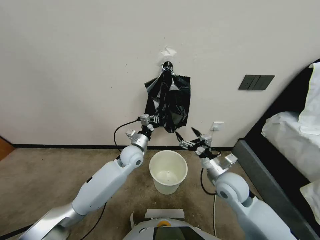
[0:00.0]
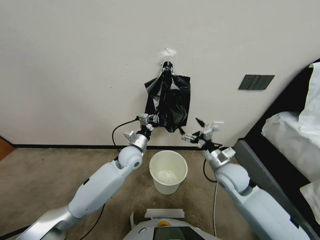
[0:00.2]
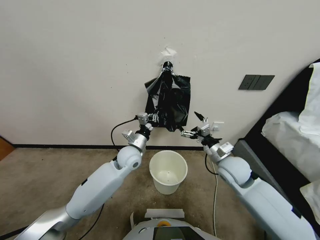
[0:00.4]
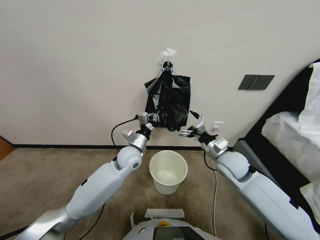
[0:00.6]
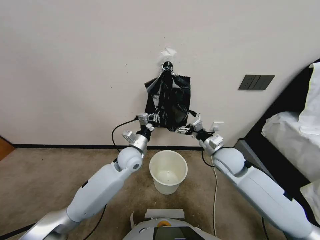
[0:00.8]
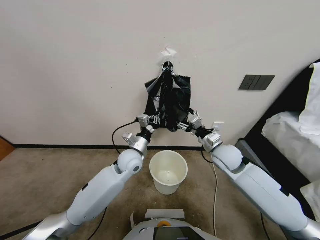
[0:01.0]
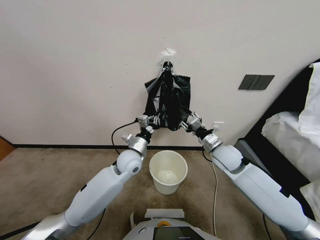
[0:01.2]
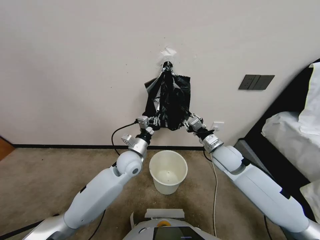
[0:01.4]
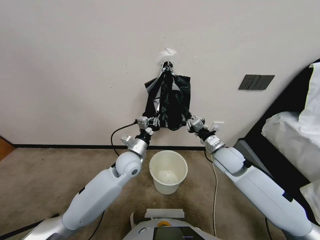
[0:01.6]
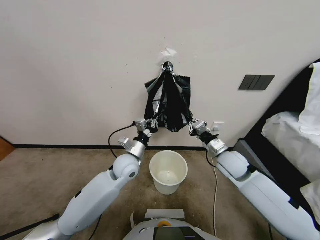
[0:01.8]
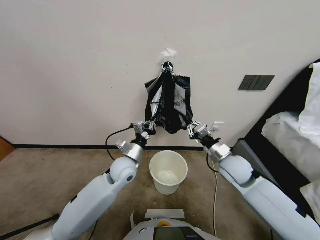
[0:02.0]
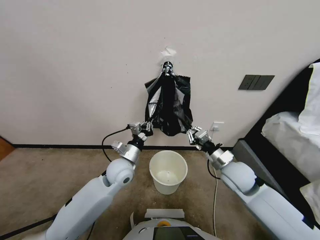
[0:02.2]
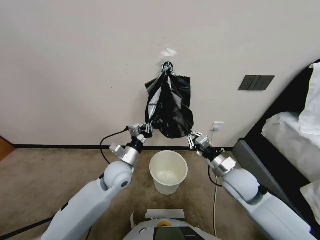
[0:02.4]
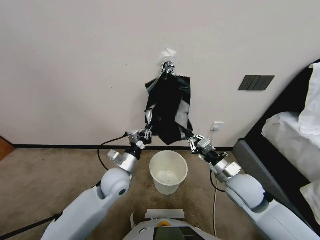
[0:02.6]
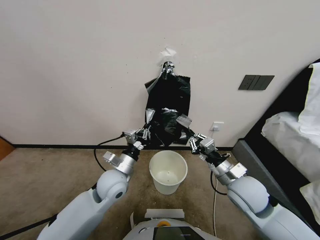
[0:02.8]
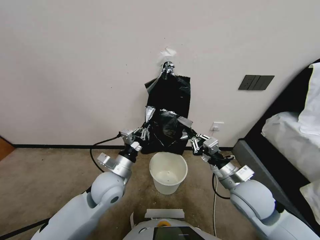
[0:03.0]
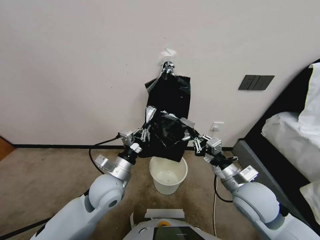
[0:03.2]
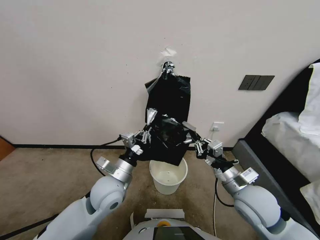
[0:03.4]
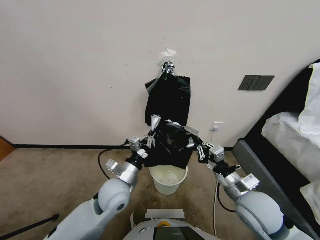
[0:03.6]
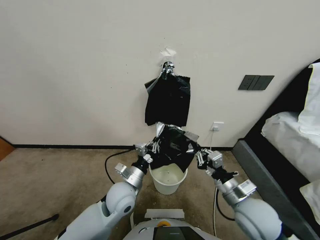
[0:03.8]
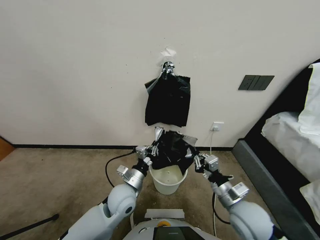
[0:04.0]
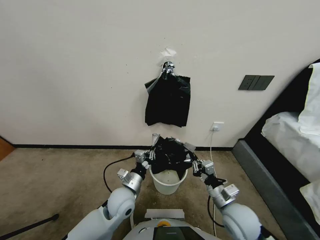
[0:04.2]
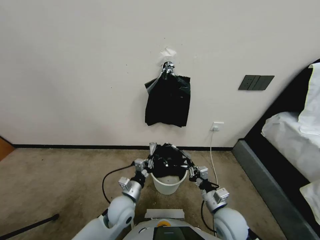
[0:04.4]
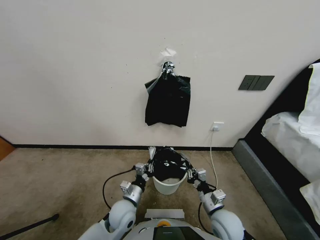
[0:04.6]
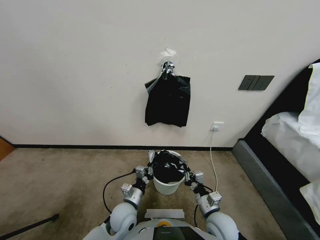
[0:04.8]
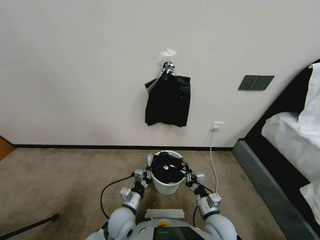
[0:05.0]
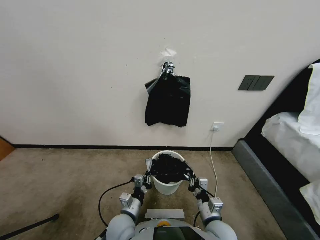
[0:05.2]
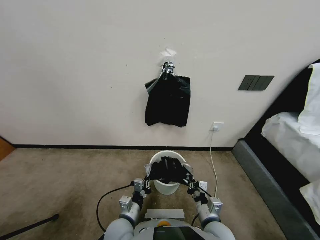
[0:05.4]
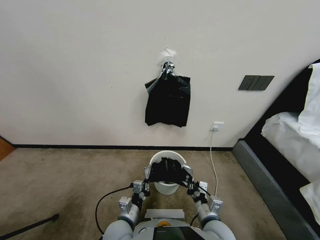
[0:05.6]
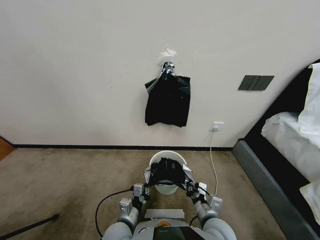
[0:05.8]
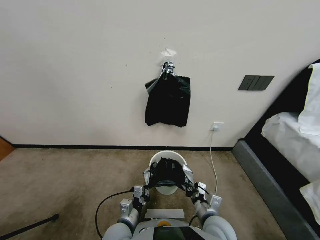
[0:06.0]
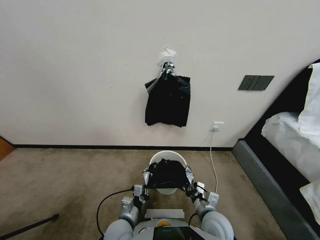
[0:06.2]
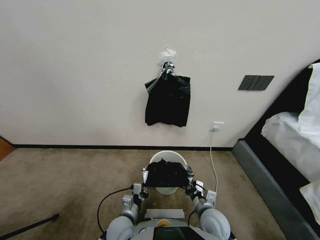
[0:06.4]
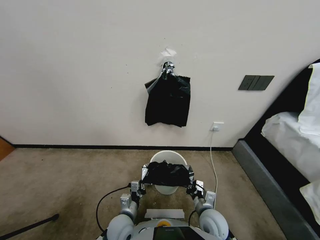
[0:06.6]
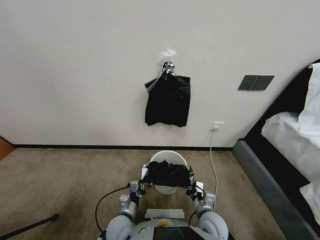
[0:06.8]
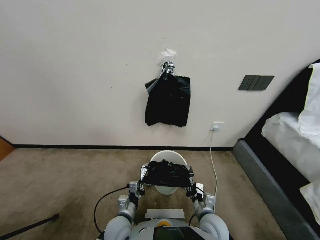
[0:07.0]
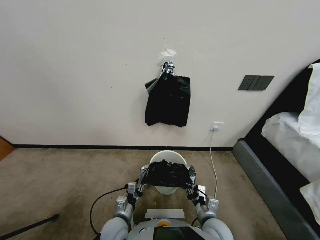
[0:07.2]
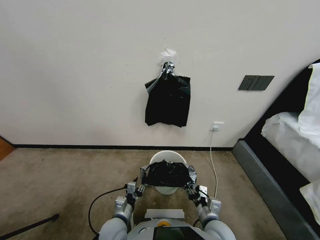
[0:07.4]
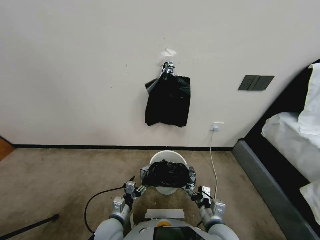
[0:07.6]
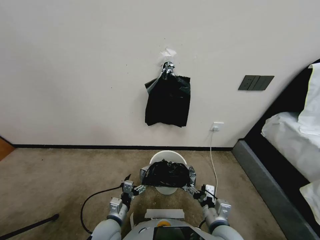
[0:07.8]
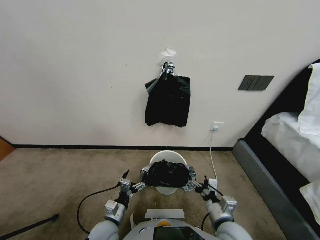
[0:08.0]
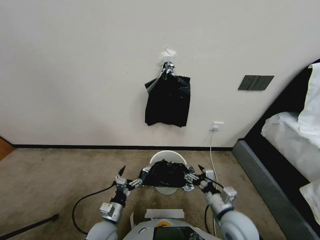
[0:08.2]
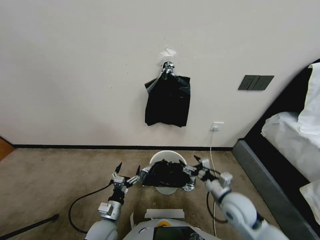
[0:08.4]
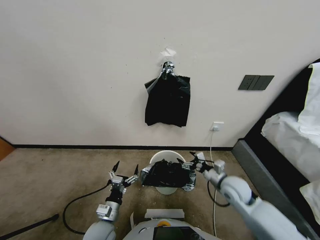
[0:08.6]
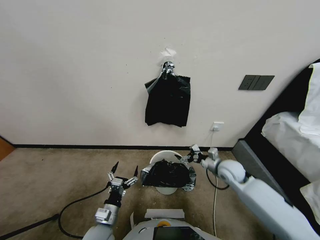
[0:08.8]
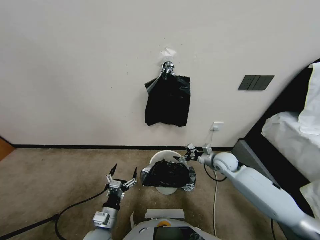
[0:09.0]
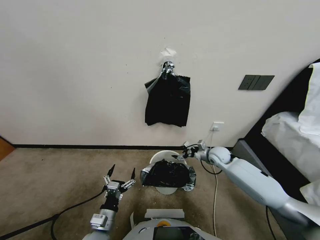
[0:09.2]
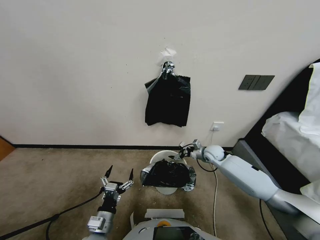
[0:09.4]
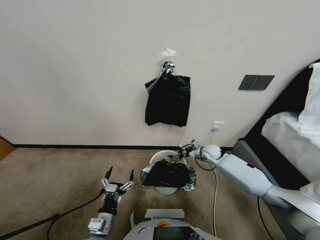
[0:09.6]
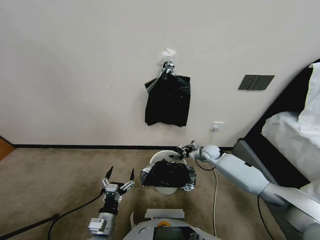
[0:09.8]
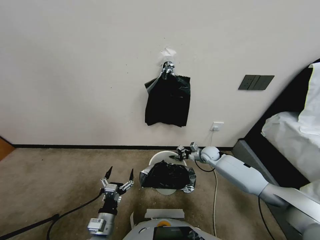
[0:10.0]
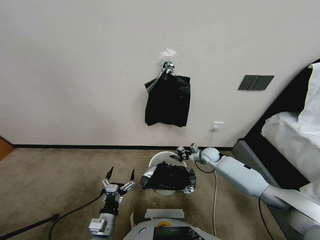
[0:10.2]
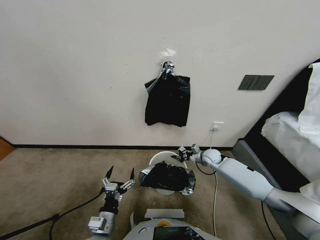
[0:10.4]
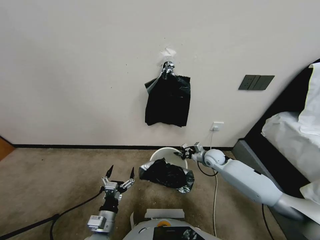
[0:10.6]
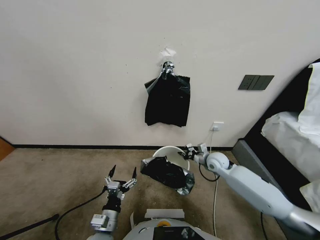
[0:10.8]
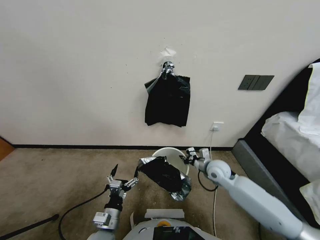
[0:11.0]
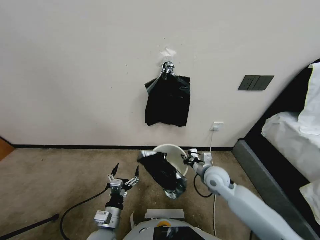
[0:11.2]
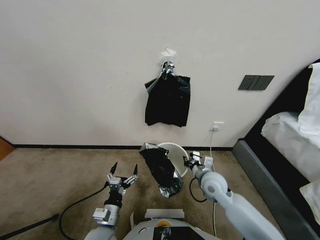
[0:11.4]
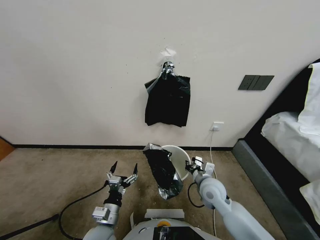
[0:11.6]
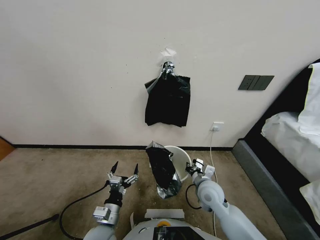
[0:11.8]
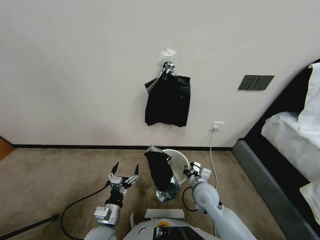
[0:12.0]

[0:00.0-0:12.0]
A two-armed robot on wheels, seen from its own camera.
Task of the whole recording: Place a trash bag onto the trash bin.
0:00.0 to 0:01.6: The right gripper shifts approximately 5 cm forward, and closes up.
0:01.6 to 0:03.0: Both grippers travel together backward, roughly 10 cm.
0:03.0 to 0:04.4: Both grippers move downward, approximately 15 cm.
0:04.4 to 0:06.0: The left gripper travels backward by some 5 cm.
0:06.0 to 0:07.6: The right gripper opens up, while the left gripper opens up.
0:07.6 to 0:09.0: The right gripper is displaced forward by about 30 cm.
0:09.0 to 0:10.4: The right gripper closes.
0:10.4 to 0:12.0: The right gripper moves backward and to the left, roughly 20 cm.

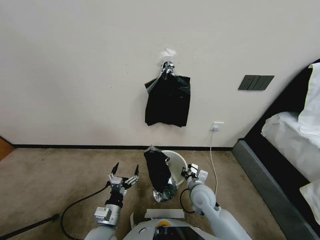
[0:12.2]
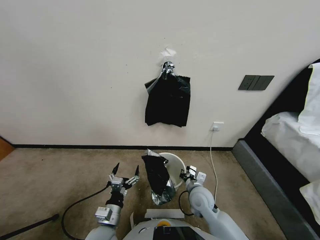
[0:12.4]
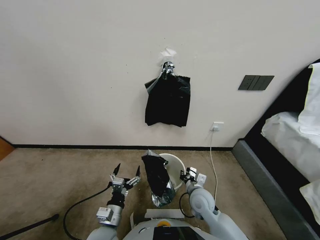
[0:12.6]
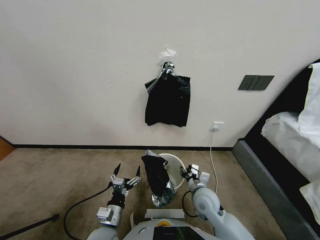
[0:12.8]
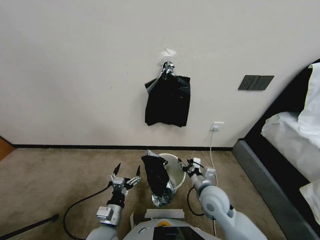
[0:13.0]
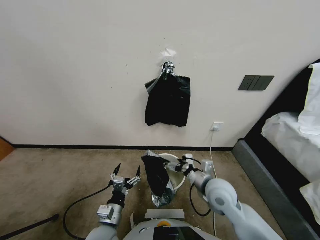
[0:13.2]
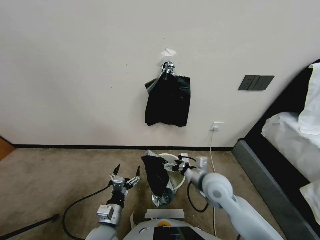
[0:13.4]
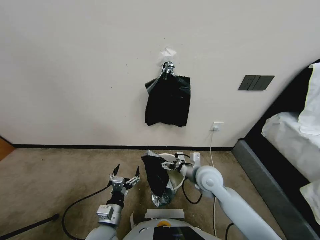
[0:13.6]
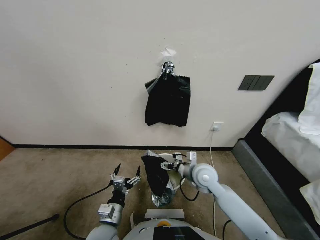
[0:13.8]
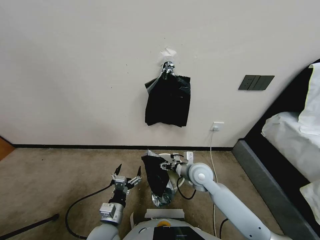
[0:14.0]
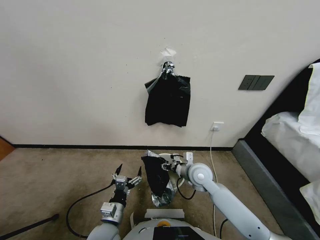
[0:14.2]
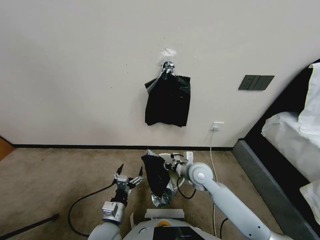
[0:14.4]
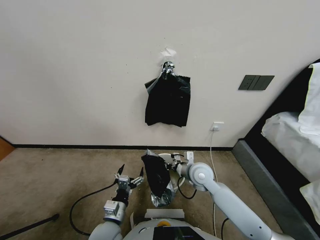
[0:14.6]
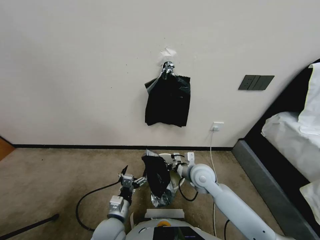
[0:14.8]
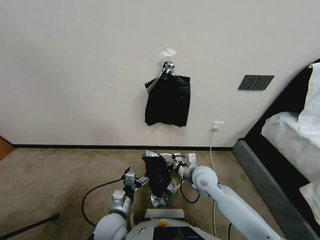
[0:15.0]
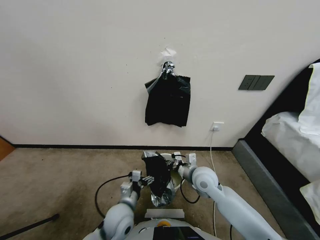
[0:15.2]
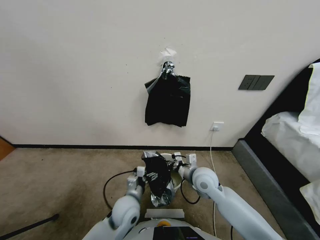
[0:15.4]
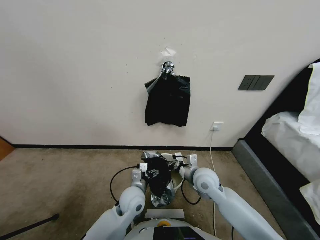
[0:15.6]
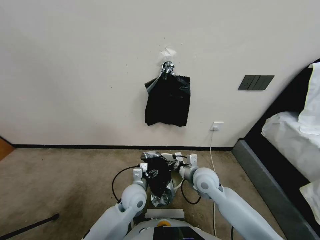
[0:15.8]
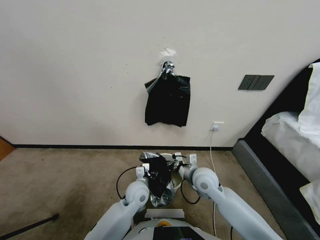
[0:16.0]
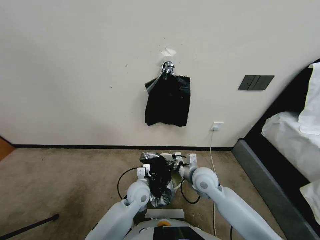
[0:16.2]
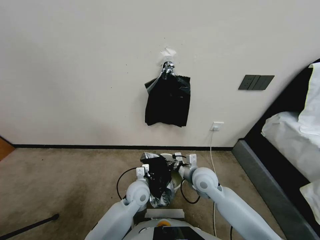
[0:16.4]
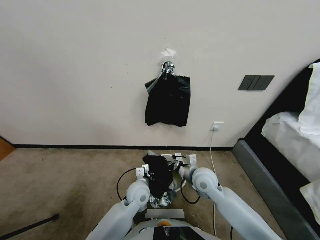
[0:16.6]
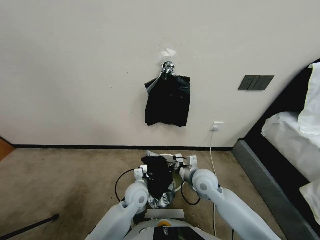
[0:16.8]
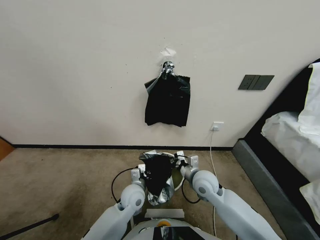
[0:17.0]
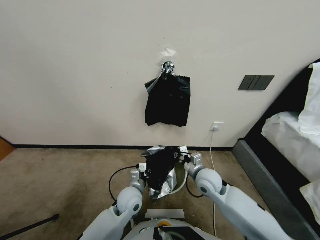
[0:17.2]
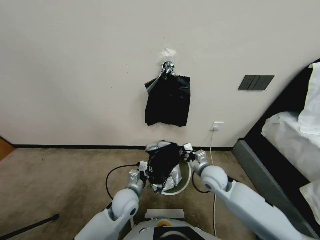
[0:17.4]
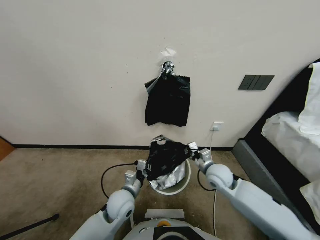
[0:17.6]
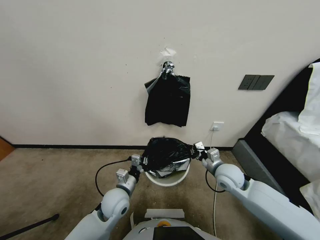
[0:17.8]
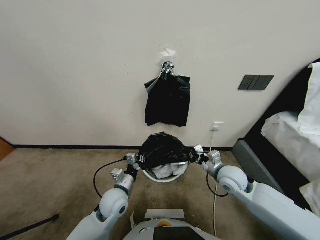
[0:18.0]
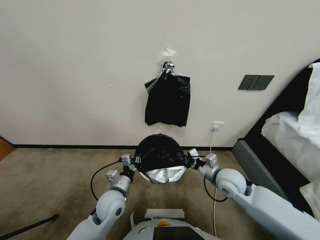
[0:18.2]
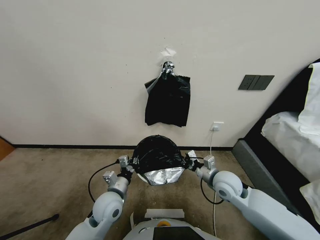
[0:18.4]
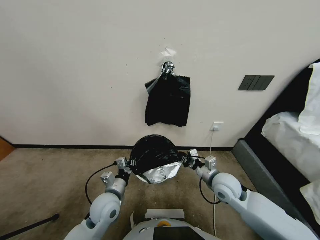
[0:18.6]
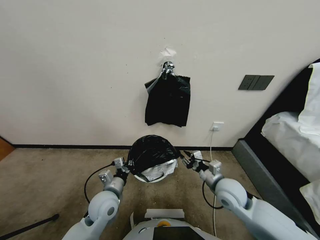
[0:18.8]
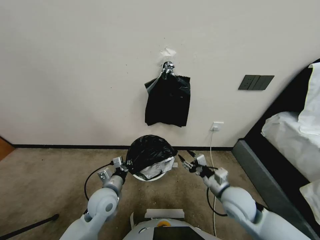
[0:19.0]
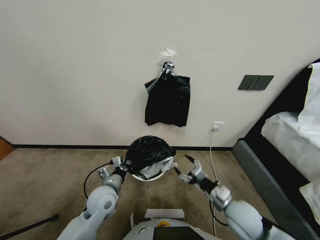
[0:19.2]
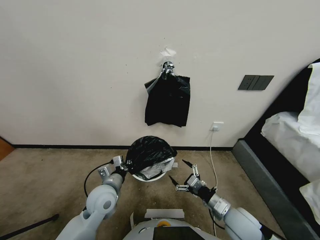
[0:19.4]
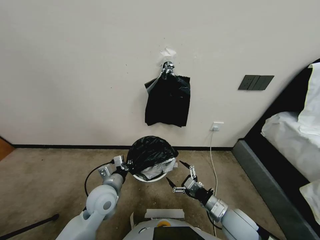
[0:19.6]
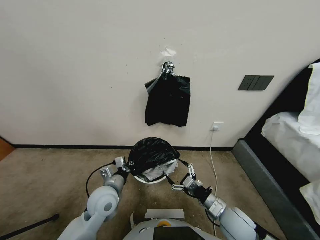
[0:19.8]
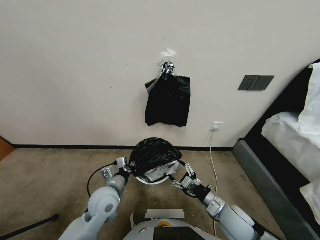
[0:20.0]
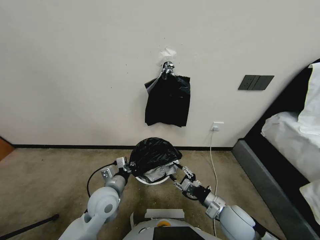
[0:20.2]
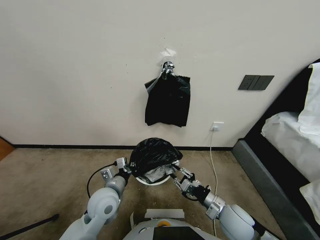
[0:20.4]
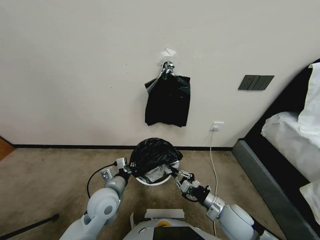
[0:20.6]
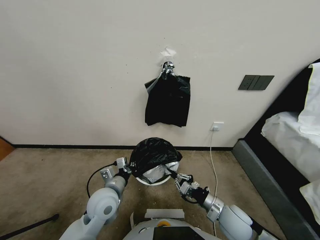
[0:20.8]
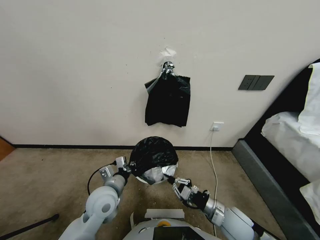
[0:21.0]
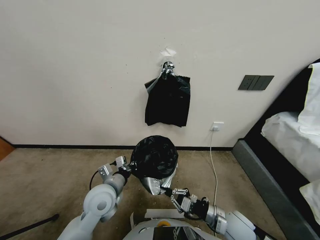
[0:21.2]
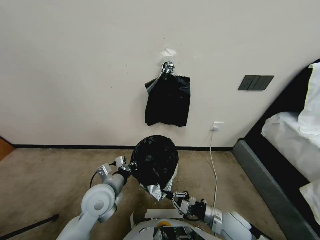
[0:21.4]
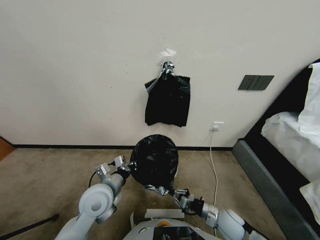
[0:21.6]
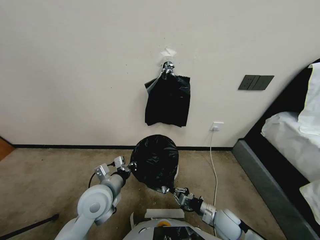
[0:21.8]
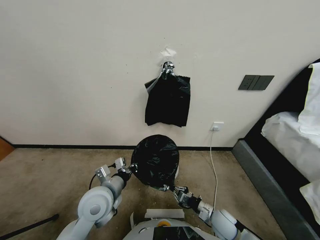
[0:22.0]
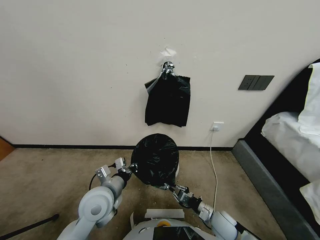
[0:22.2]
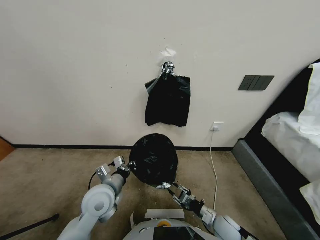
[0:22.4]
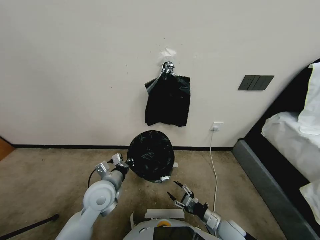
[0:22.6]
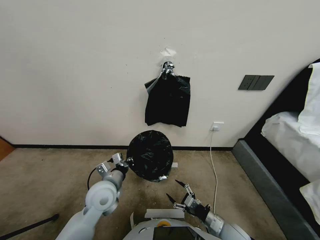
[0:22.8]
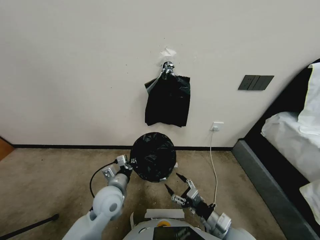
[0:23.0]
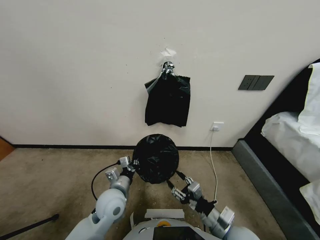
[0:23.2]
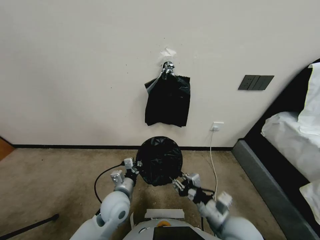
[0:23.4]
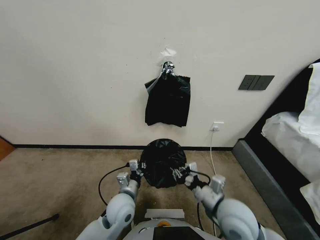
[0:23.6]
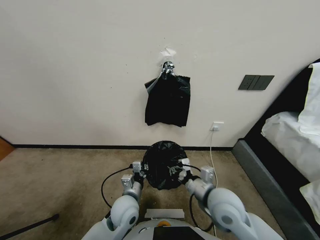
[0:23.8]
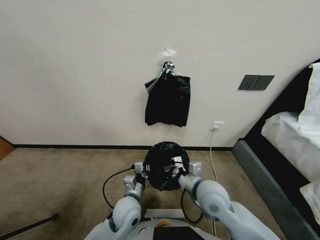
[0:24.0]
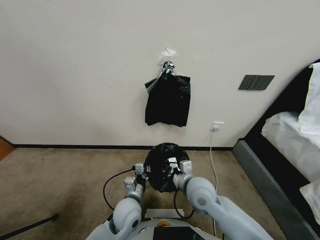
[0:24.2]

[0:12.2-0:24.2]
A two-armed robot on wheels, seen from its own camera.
Task of the whole recording: Place a trash bag onto the trash bin.
0:12.2 to 0:13.8: The right gripper goes about 10 cm upward and forward, and opens.
0:13.8 to 0:15.2: The left gripper heads forward and to the right, covering approximately 10 cm; the right gripper closes.
0:15.2 to 0:16.6: The left gripper goes about 5 cm forward, and closes up.
0:16.6 to 0:18.2: The left gripper heads to the left, covering about 10 cm; the right gripper shifts about 10 cm to the right.
0:18.2 to 0:19.8: The right gripper moves backward, about 10 cm, and opens up.
0:19.8 to 0:21.2: The right gripper moves about 5 cm, and closes up.
0:21.2 to 0:22.6: The right gripper is displaced downward by roughly 5 cm, and opens.
0:22.6 to 0:24.2: The left gripper is displaced to the right and downward by some 10 cm. Meanwhile the right gripper travels upward, to the left and forward by about 25 cm, and closes.
